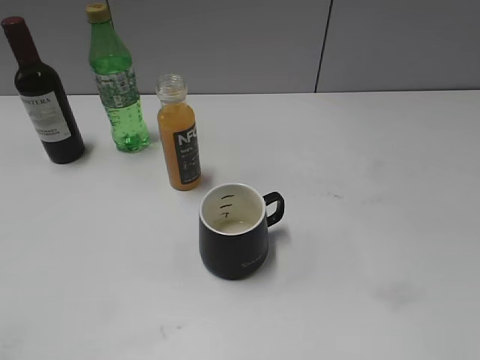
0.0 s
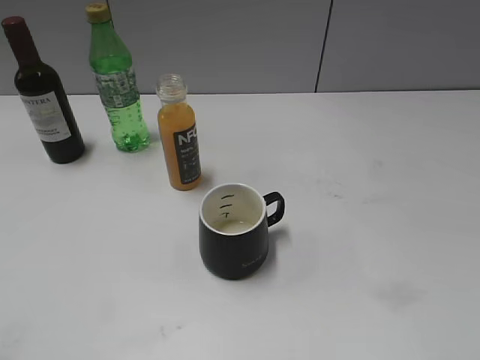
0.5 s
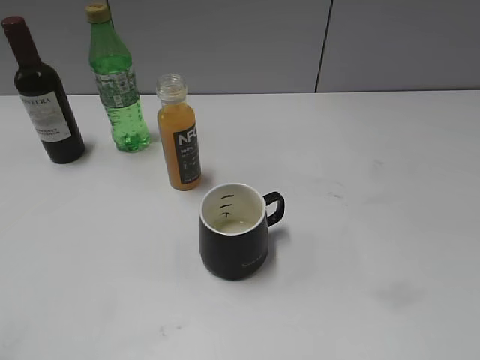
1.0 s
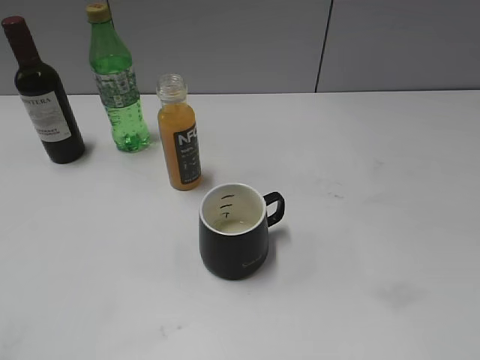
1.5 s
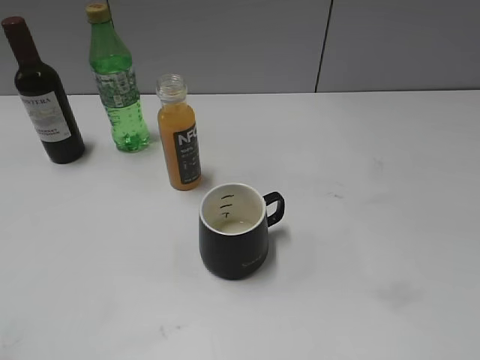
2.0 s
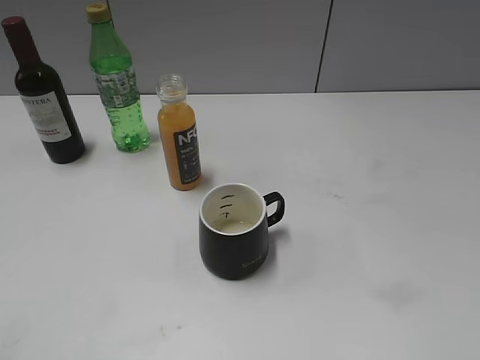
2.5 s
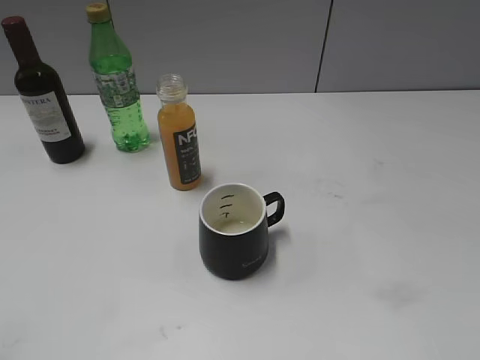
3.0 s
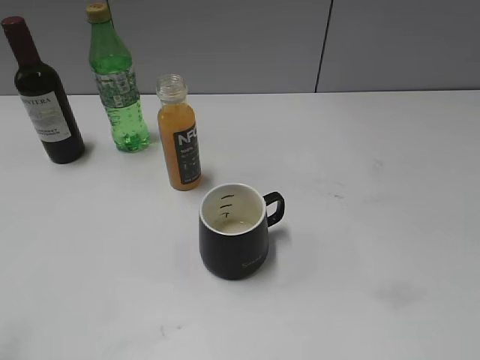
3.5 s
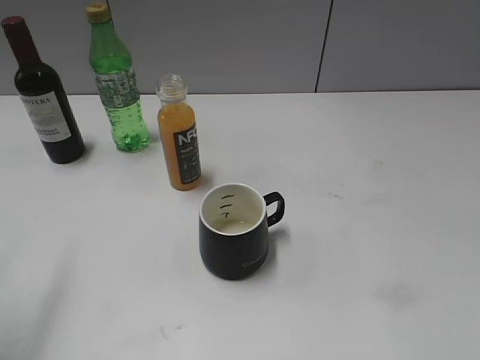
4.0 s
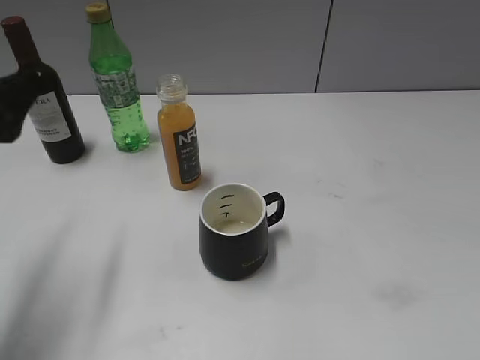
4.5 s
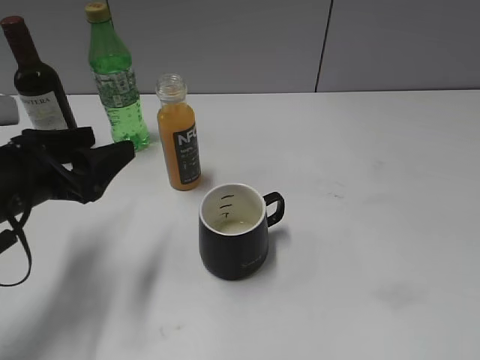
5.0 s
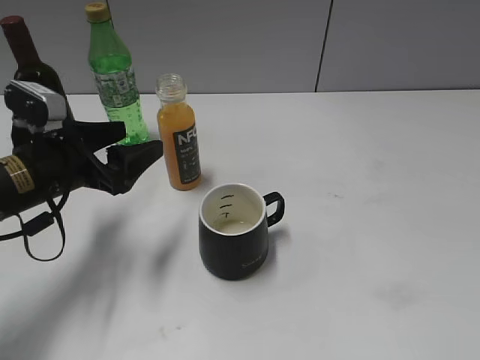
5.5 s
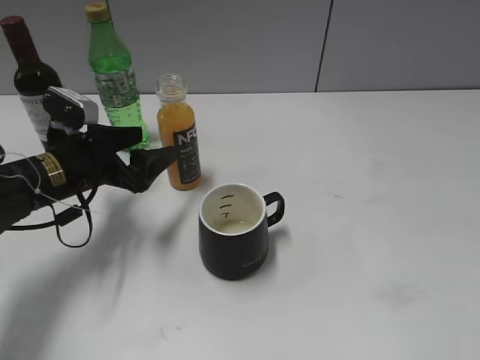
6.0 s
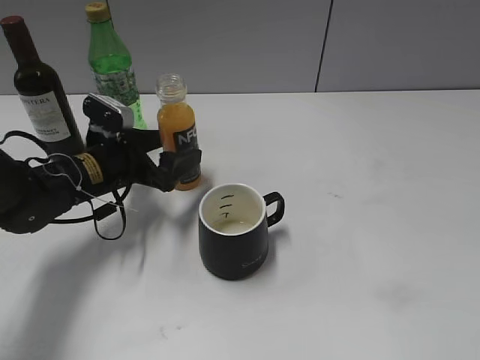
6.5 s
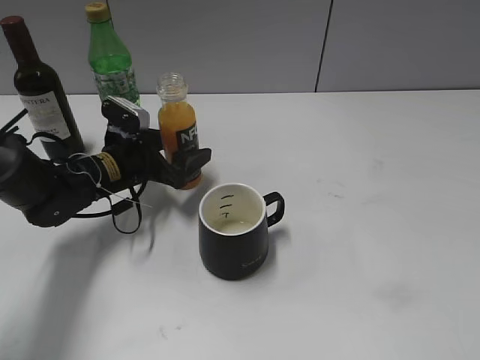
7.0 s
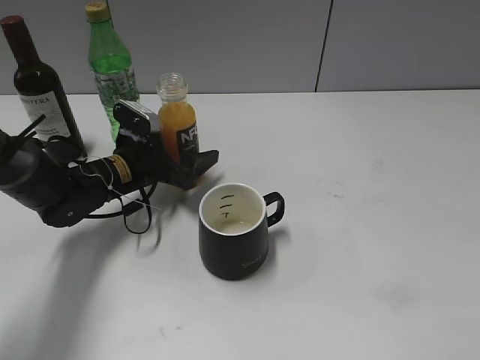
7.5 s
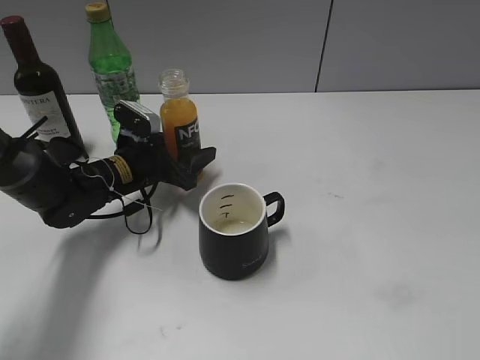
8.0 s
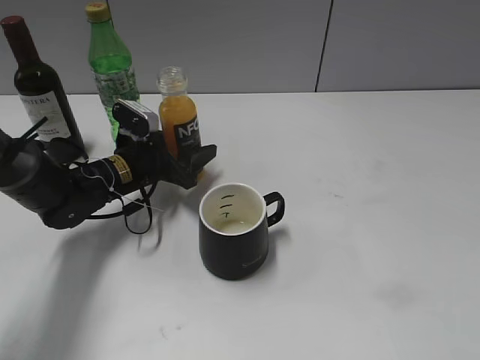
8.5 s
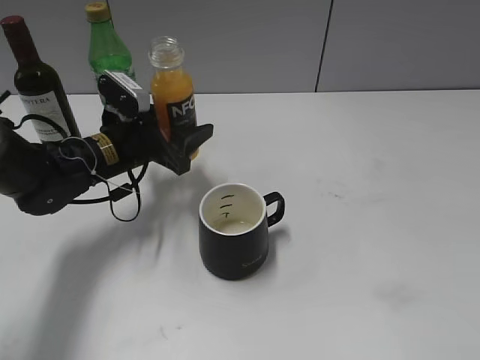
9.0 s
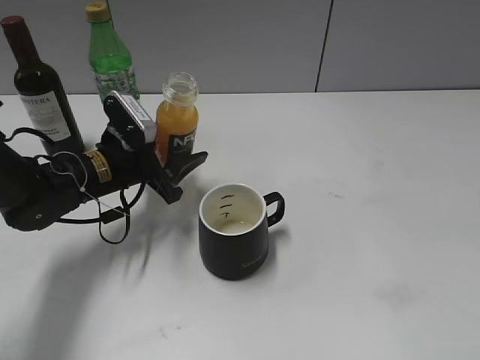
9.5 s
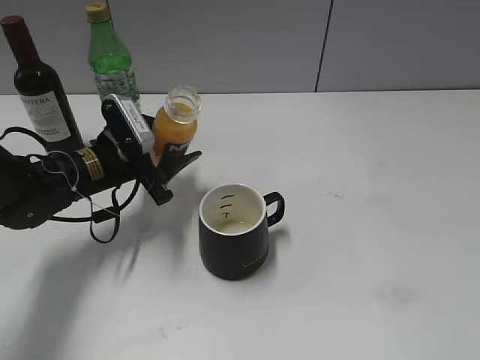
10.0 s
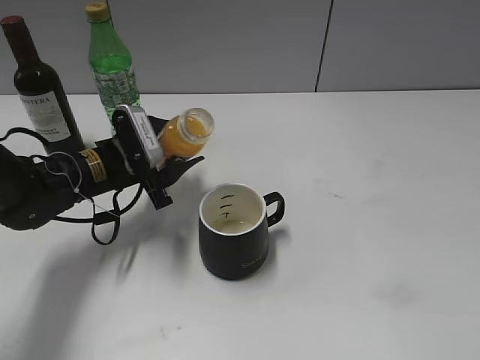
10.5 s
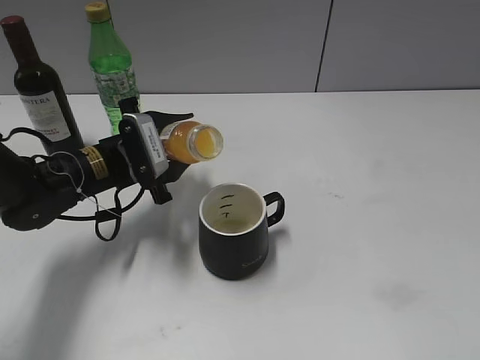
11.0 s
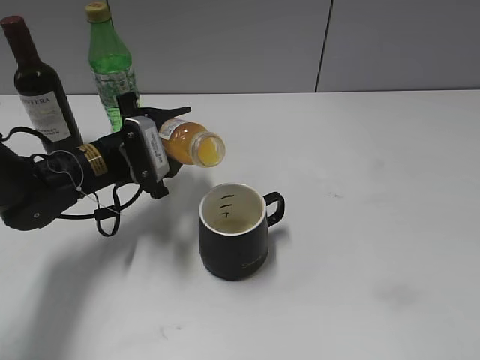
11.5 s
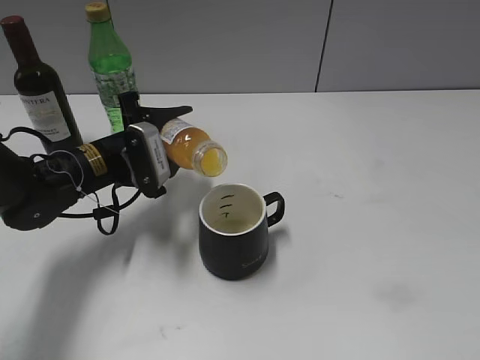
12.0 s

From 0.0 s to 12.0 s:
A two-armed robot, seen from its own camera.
Step, from 0.0 s to 8.0 s: Grasp the bottle with orange juice with left gripper.
From 2.0 s to 4.0 s: The left gripper moves forward, approximately 15 cm, and opens its fingers.
From 4.0 s to 6.0 s: The left gripper is displaced downward, forward and to the right by about 30 cm.
From 6.0 s to 8.0 s: The left gripper travels forward, downward and to the right by approximately 10 cm, and closes up.
From 8.0 s to 10.0 s: The left gripper moves roughly 5 cm.

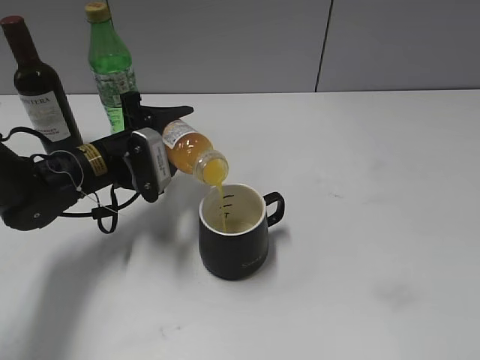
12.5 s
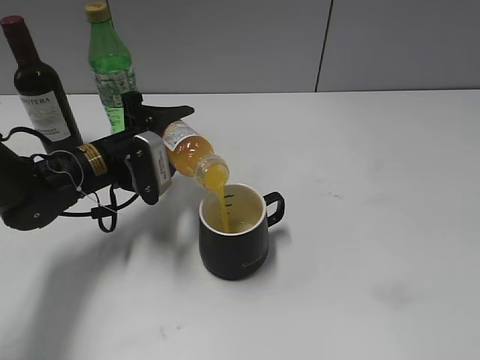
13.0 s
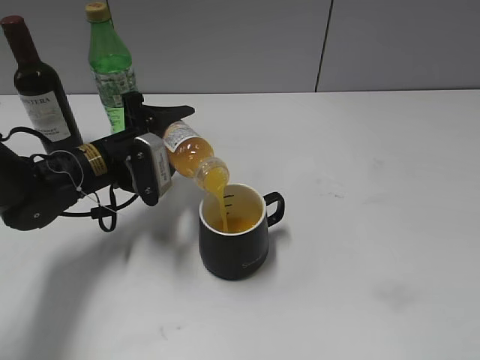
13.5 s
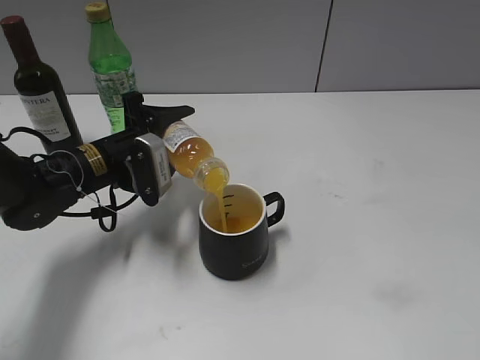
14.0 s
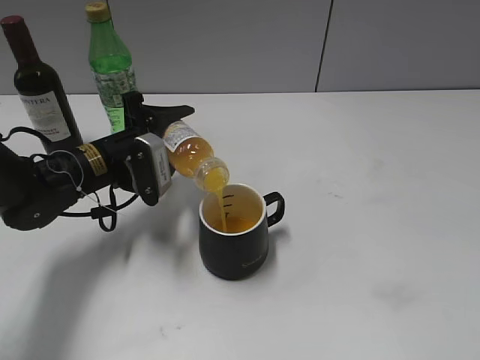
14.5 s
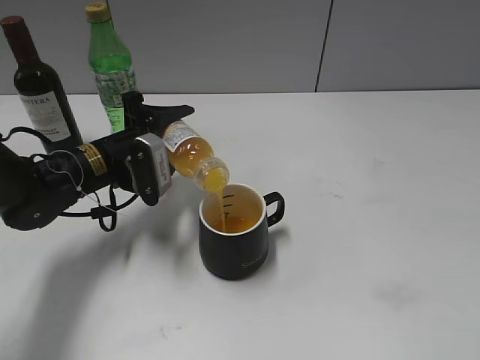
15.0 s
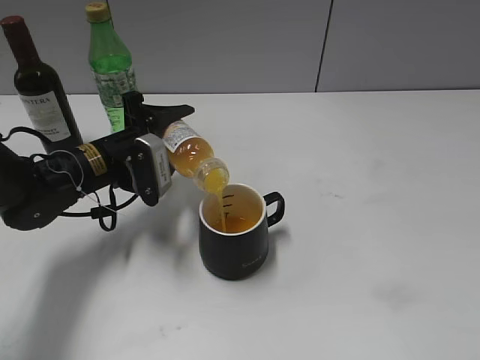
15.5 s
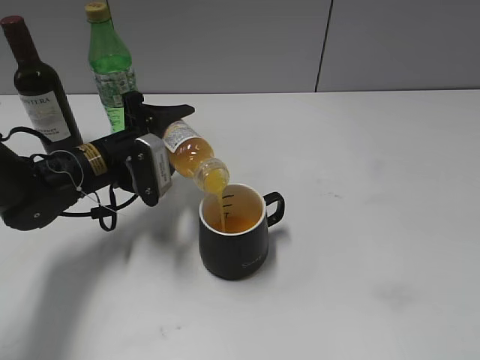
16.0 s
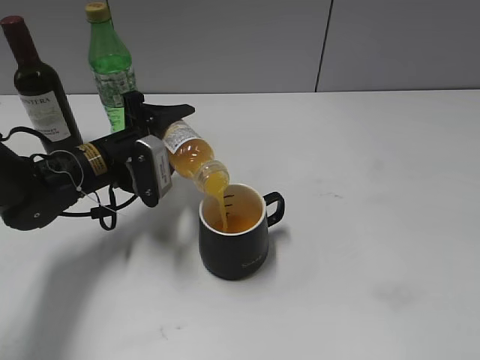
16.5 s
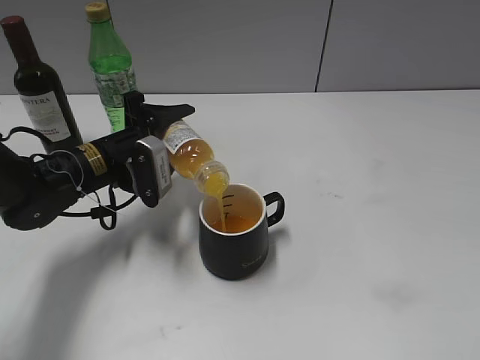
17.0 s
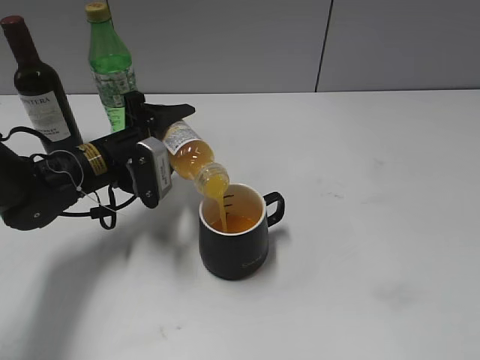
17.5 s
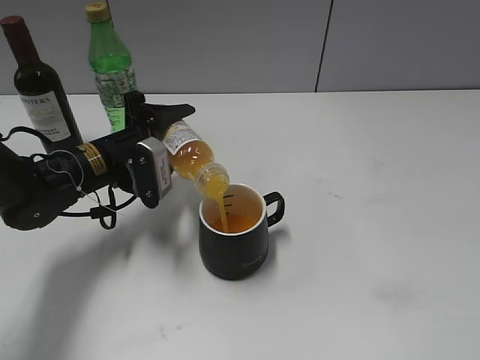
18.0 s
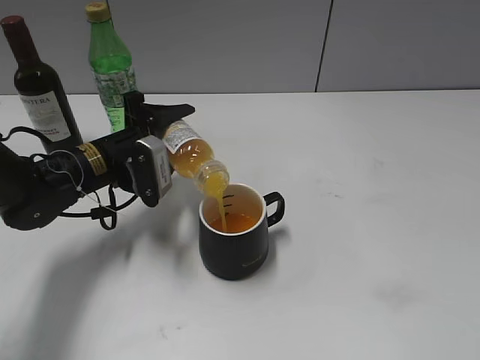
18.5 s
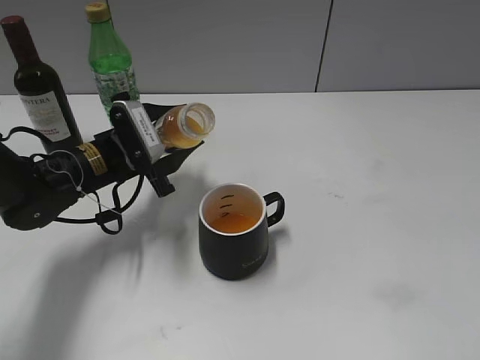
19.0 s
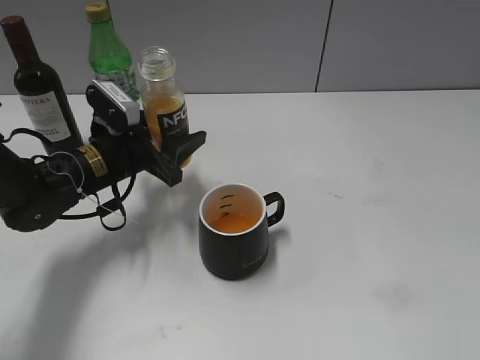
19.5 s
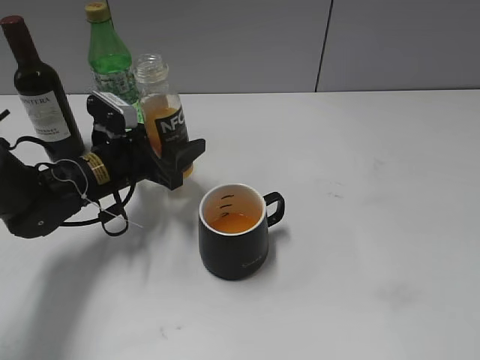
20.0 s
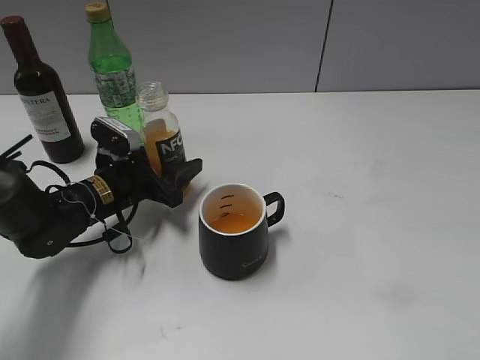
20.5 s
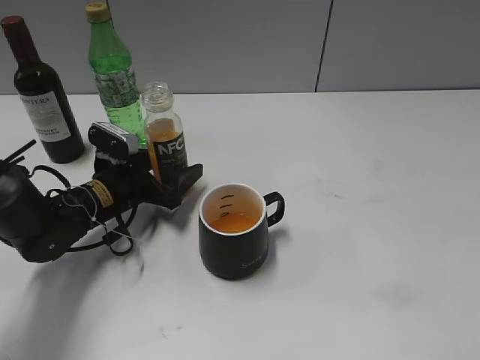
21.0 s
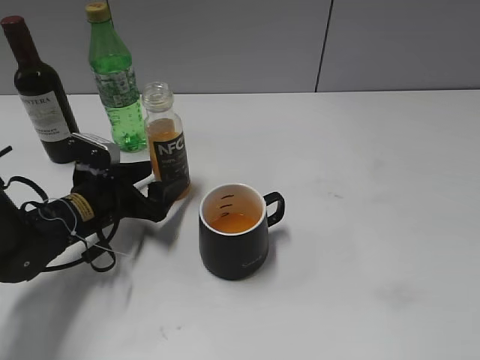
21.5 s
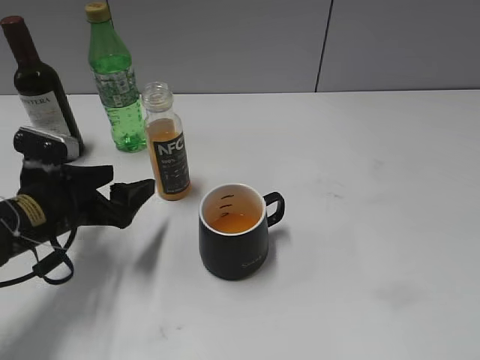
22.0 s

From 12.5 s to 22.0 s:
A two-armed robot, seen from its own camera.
Step, from 19.0 s to 21.0 s: Place the orange juice bottle on the table with left gripper.
From 12.5 s to 14.5 s: There are only small adjustments of the grippers.
From 14.5 s to 18.0 s: Neither gripper changes place.
From 20.0 s to 22.0 s: The left gripper heads backward, covering roughly 10 cm, and opens up.

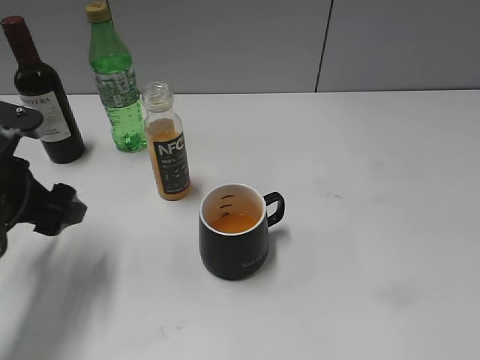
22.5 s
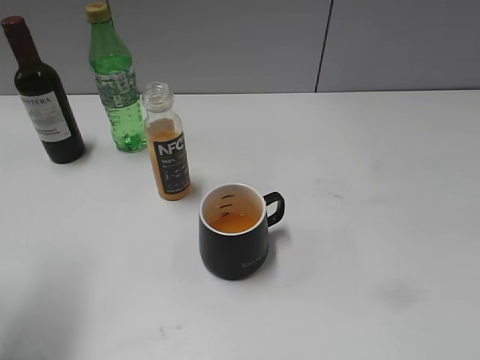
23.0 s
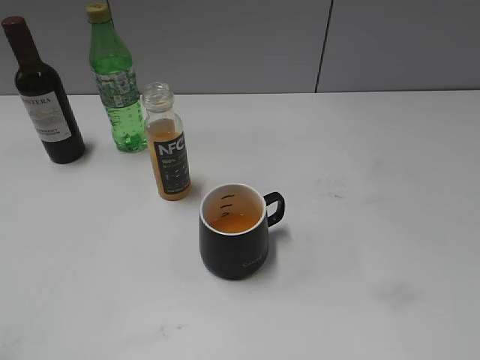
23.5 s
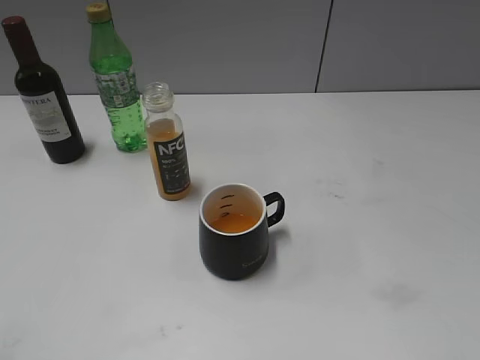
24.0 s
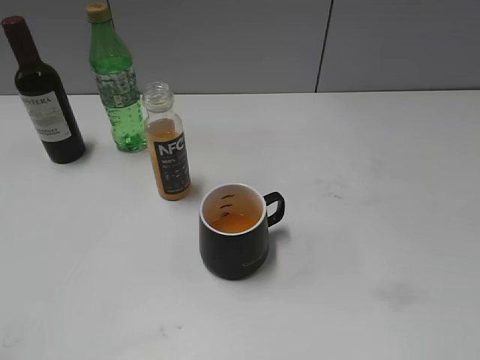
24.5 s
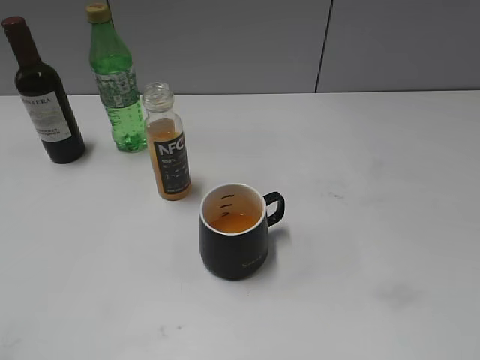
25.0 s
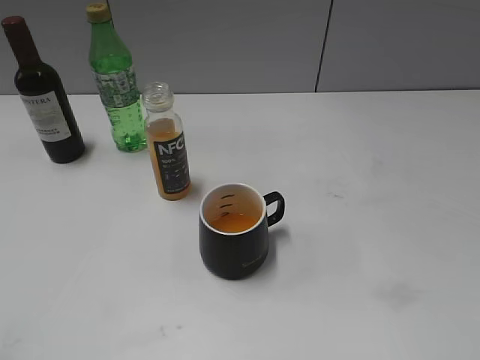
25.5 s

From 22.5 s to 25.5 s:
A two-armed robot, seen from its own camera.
From 22.5 s to 24.0 s: The left gripper heads backward and upward, covering about 25 cm.
